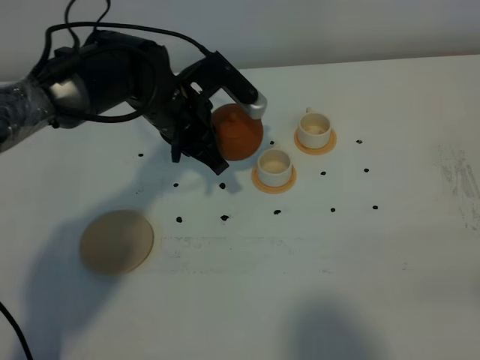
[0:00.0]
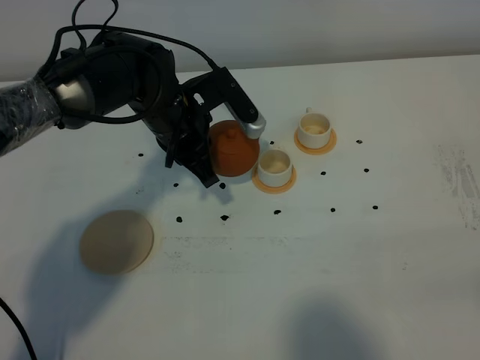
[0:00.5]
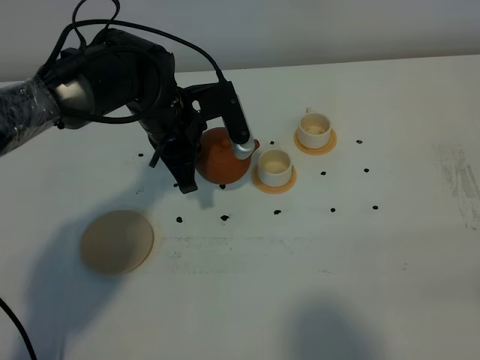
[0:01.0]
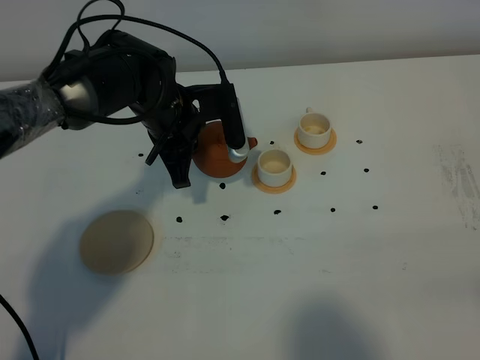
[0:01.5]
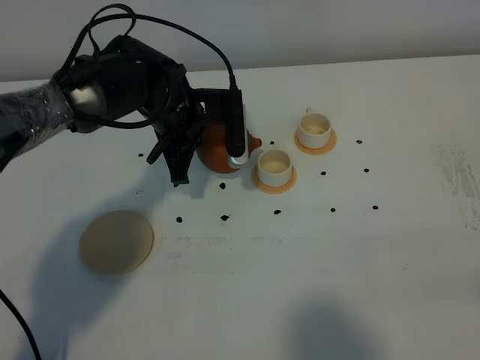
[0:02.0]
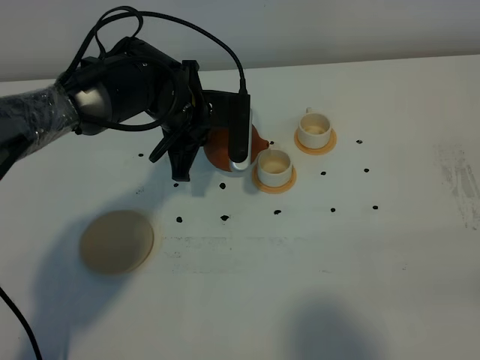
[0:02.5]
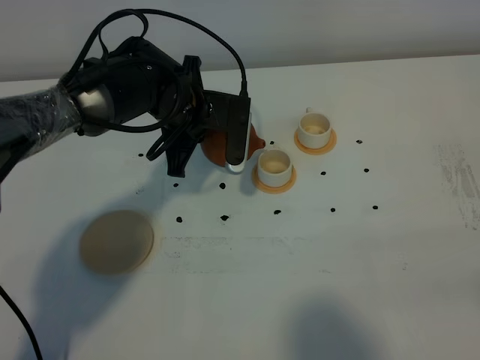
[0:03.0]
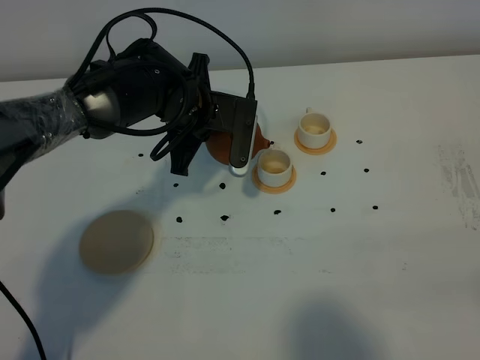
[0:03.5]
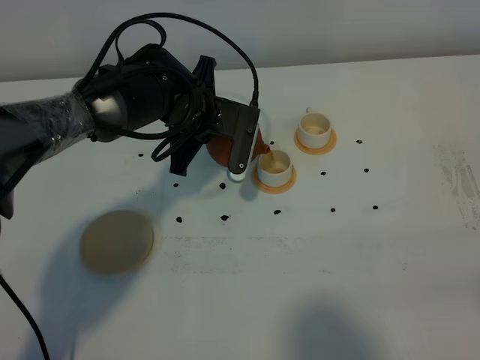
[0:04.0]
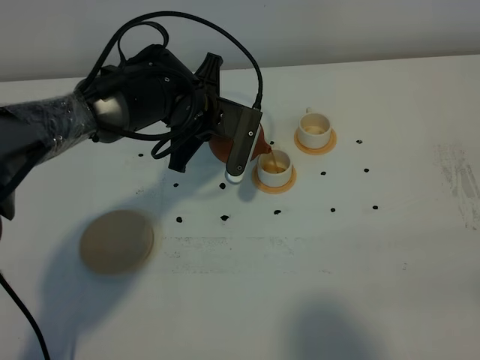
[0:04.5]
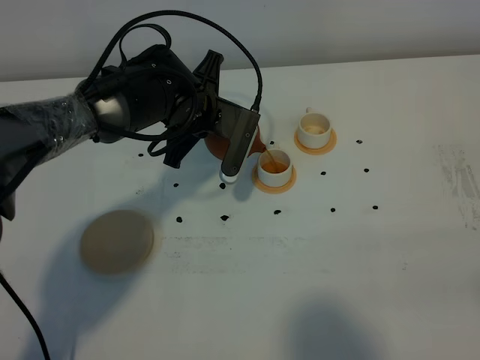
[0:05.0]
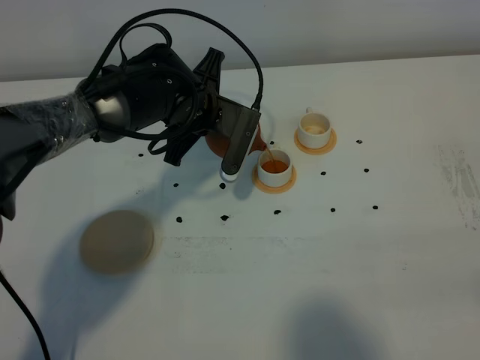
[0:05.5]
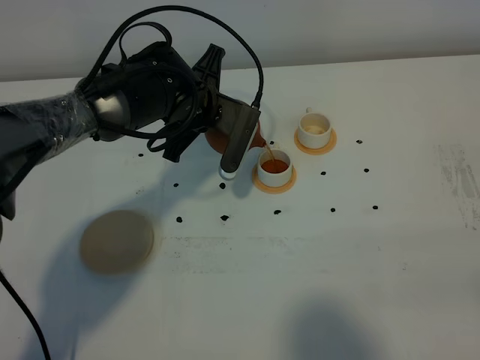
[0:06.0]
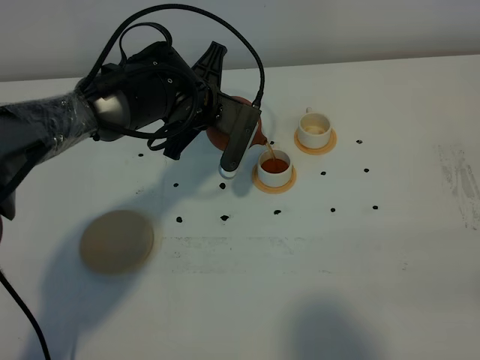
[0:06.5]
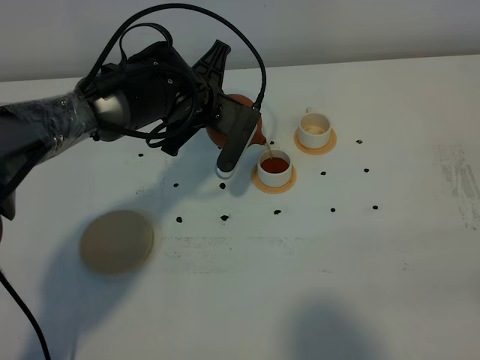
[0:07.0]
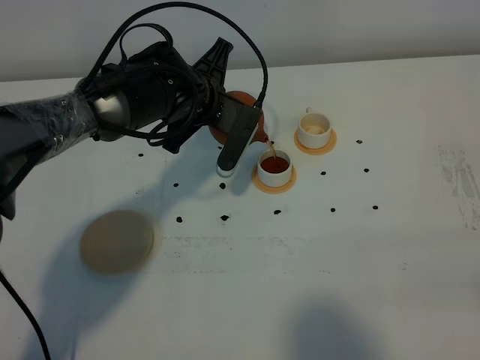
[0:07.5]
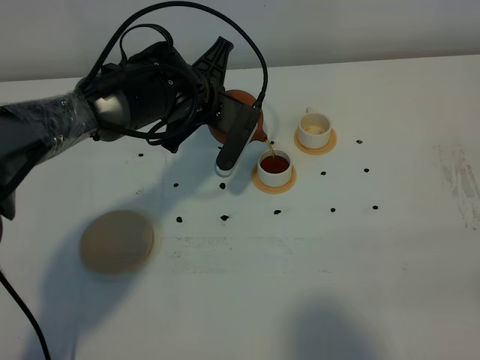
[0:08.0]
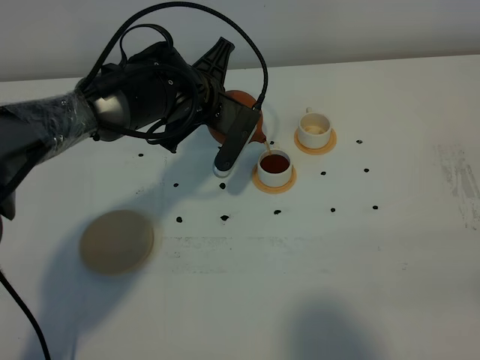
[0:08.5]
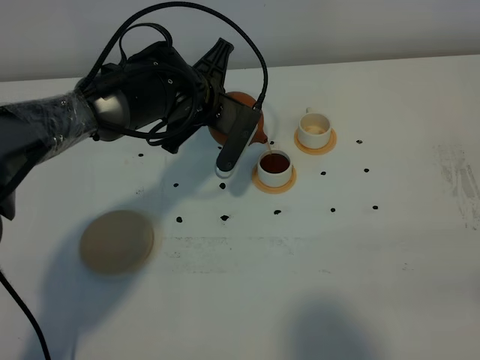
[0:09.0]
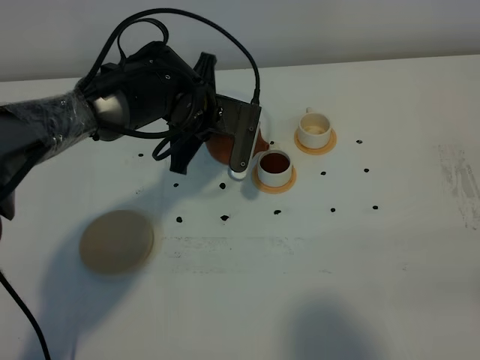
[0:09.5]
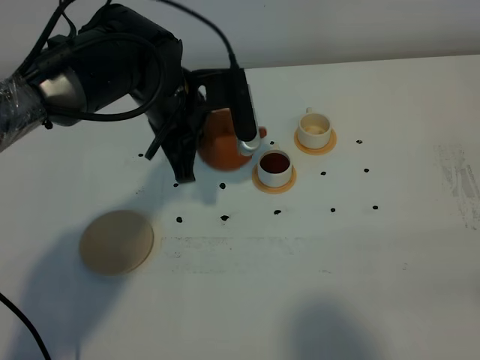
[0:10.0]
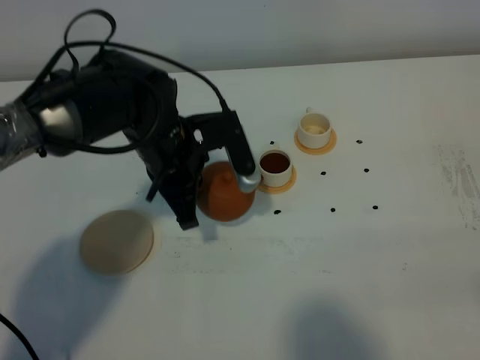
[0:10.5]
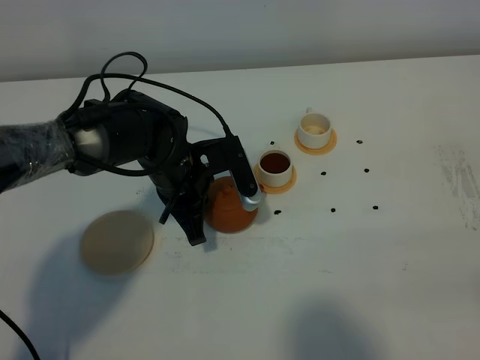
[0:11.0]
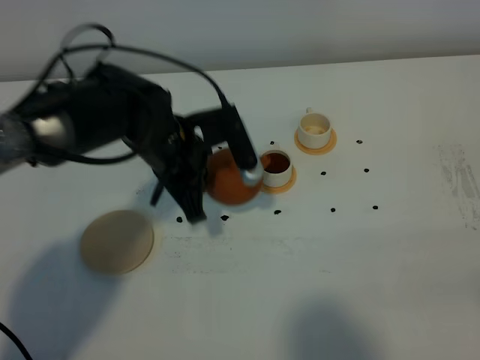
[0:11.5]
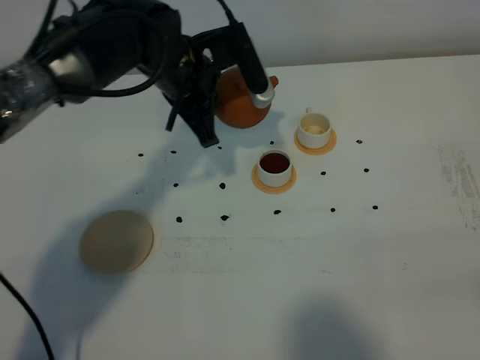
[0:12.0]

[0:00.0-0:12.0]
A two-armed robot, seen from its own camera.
Task of the whole recording: grasp the brown teapot and pour the tea into the two white teacups one by one, put the brown teapot back in its original place.
Step, 0:00.0 to 0:09.5: Pour tea into the teacup with the left gripper.
0:02.0 to 0:04.0: The grippers move only a little.
0:04.0 to 0:08.0: The grippers move only a little.
0:08.0 to 0:10.0: The left gripper changes place by some 5 cm.
0:10.0 to 0:12.0: The left gripper moves about 10 cm downward and comes back.

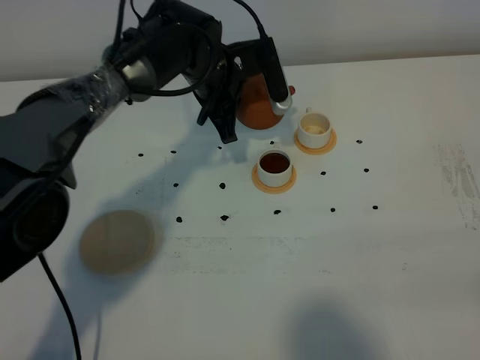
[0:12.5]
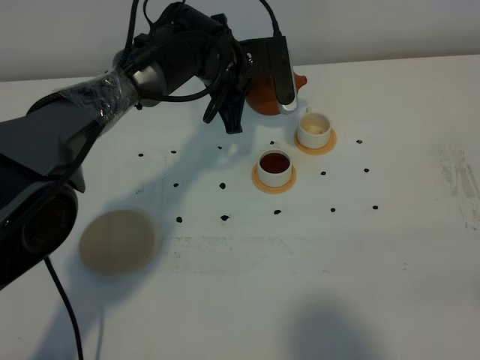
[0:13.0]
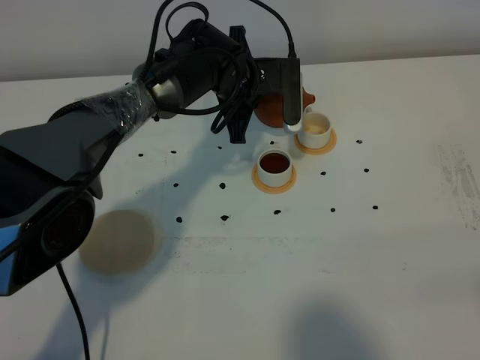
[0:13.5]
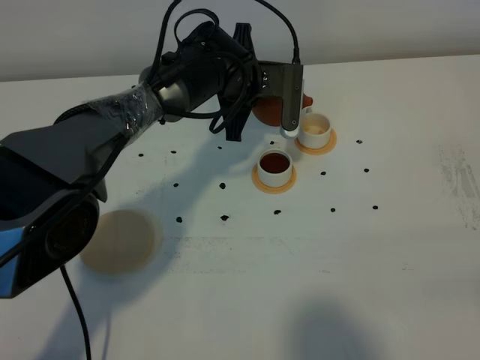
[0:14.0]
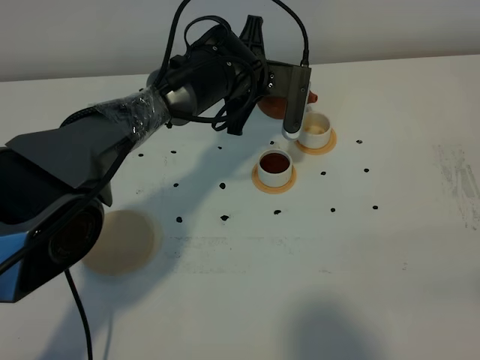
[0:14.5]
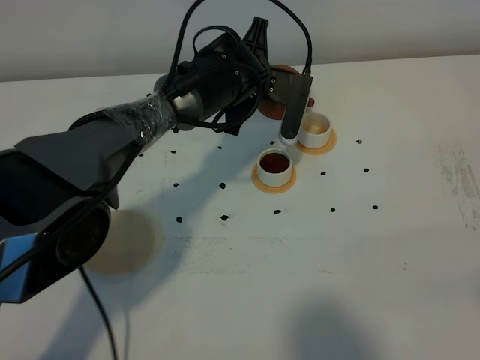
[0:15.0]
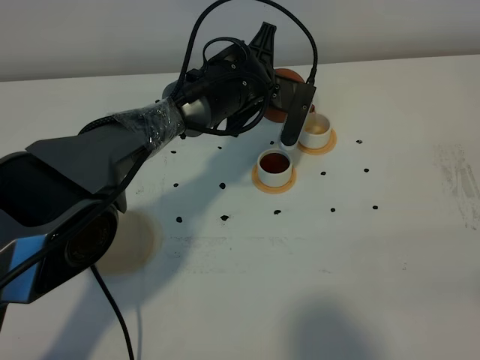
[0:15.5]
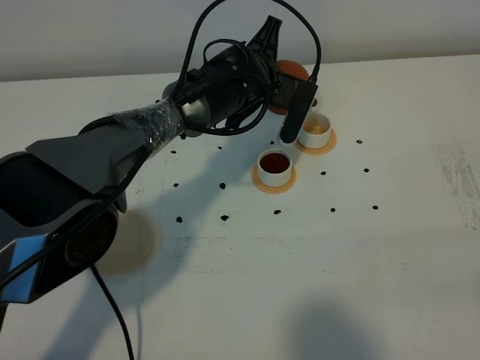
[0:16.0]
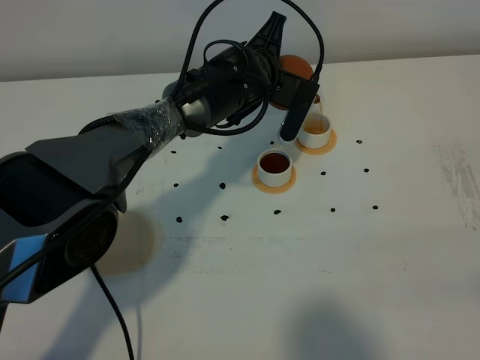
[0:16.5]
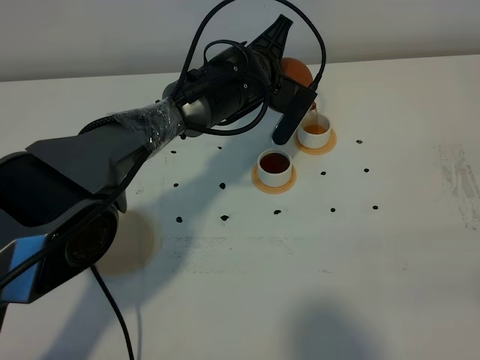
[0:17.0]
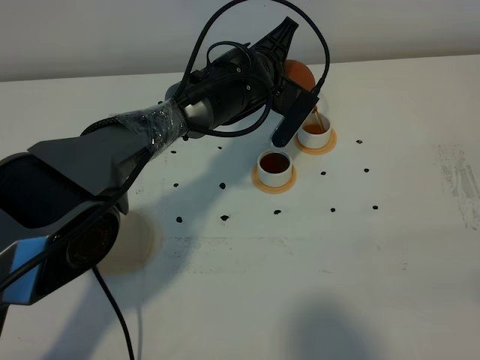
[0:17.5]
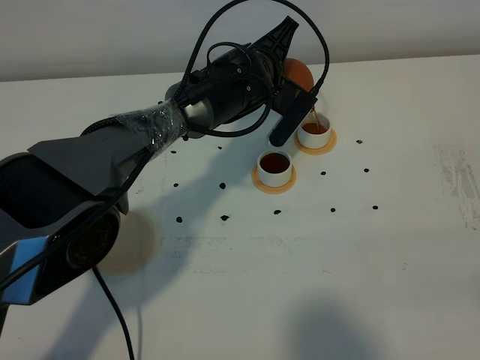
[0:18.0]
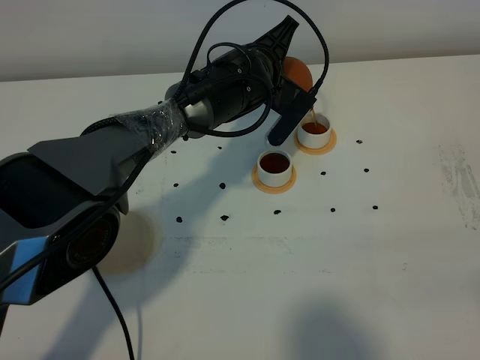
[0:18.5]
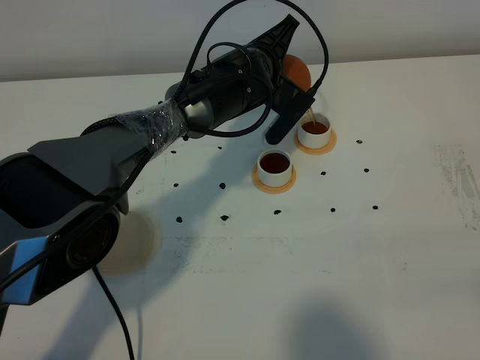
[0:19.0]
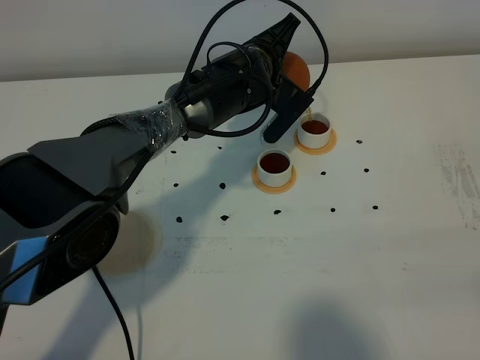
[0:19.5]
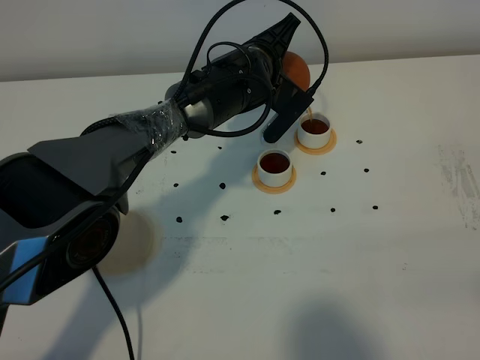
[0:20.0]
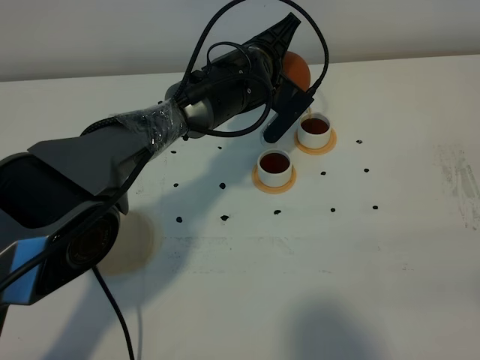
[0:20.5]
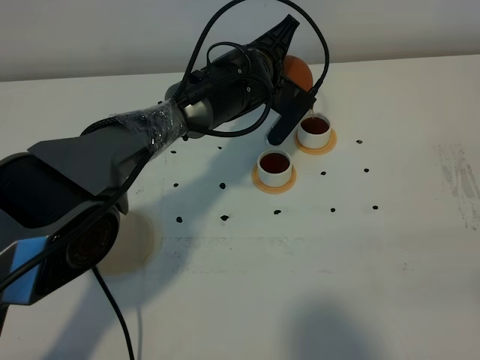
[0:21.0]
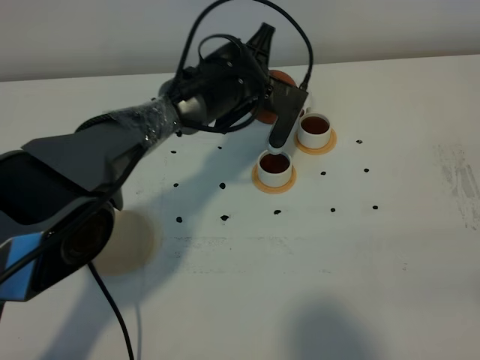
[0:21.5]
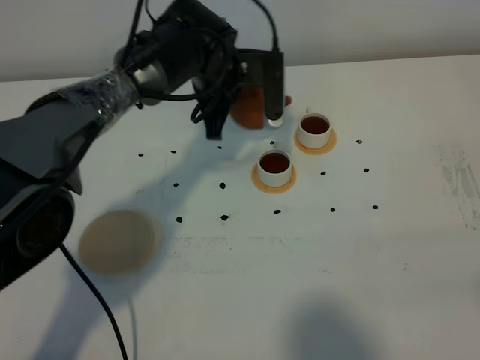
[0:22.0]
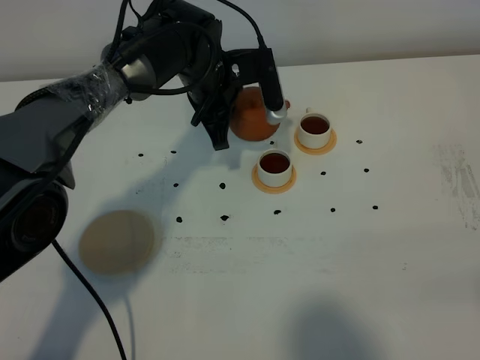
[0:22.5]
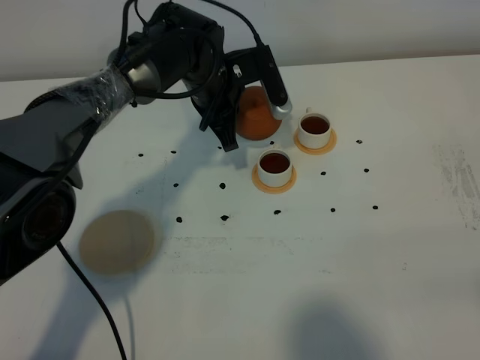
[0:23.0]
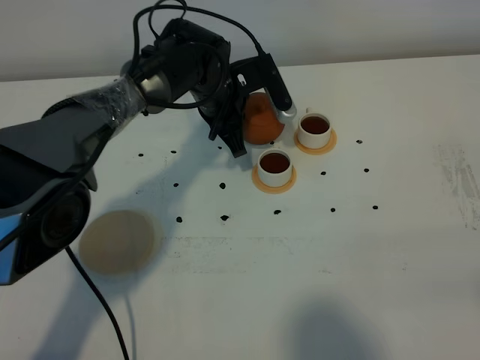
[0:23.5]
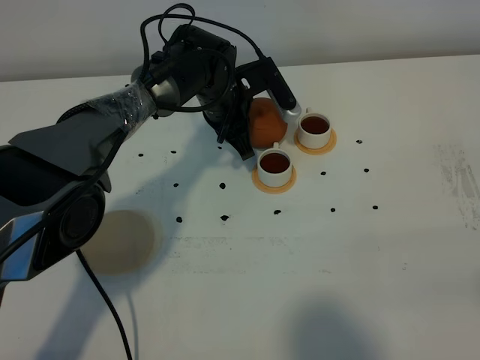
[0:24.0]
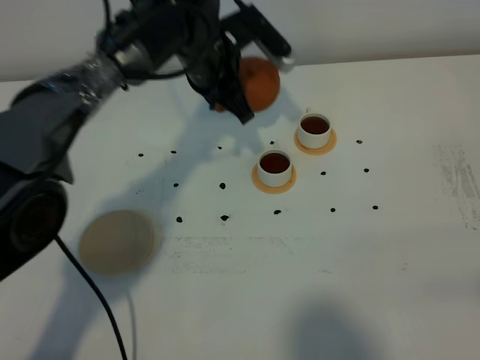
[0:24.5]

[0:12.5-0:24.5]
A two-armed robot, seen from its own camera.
Task of the whole recording: grasp the brown teapot and pour the tea into the two white teacups one by one, put the brown teapot back in its original place.
Step, 0:12.5 to 0:21.5: Pour tea into the teacup with the left gripper.
0:14.5 to 0:16.5: The grippers stay close to where they were, moving slightly.
0:16.5 to 0:18.5: The grippers stay close to where they were, moving slightly.
0:18.5 to 0:20.5: Neither gripper changes place.
0:20.5 to 0:22.5: The left gripper goes some 5 cm to the left.

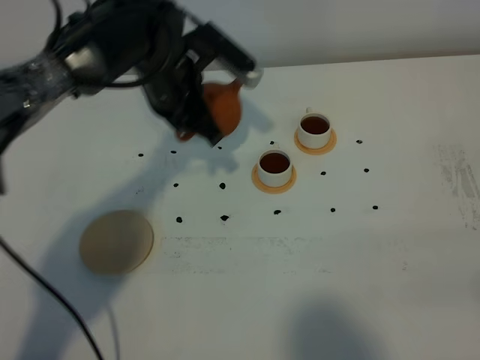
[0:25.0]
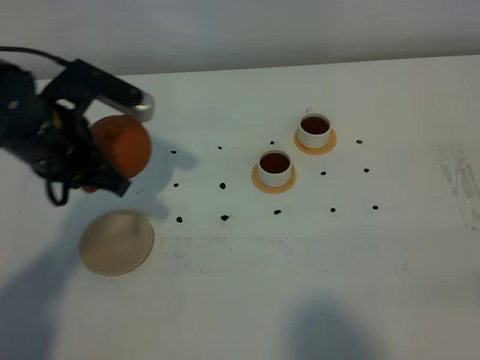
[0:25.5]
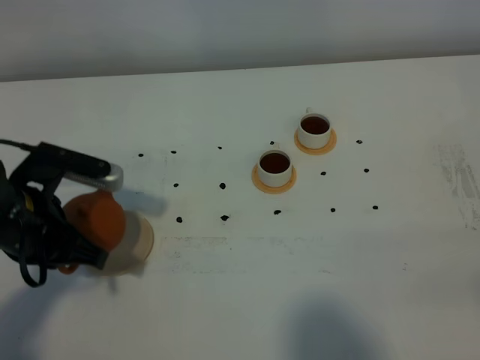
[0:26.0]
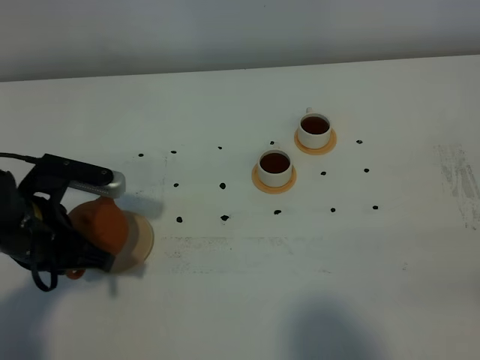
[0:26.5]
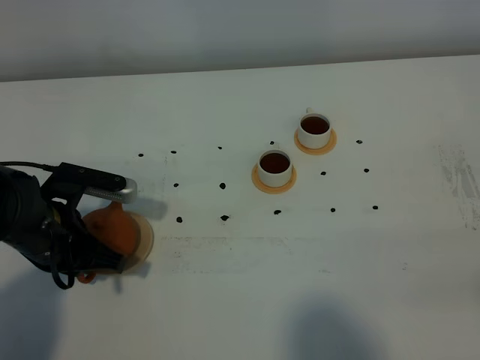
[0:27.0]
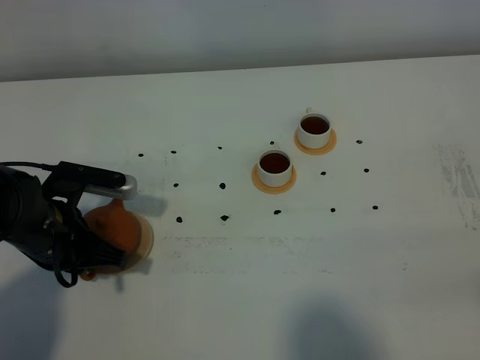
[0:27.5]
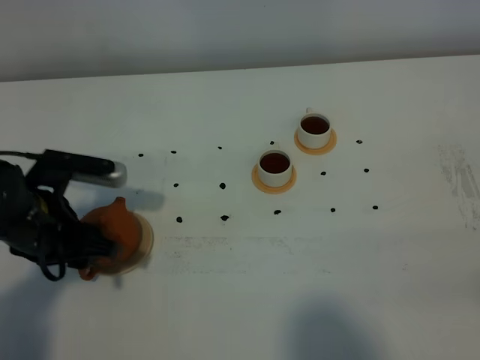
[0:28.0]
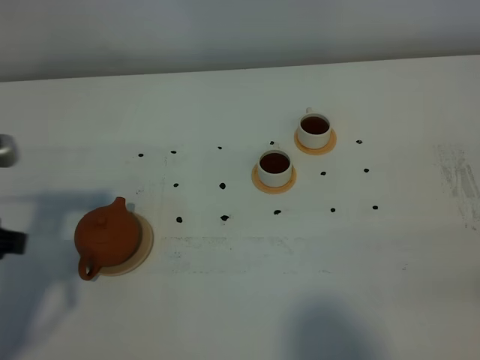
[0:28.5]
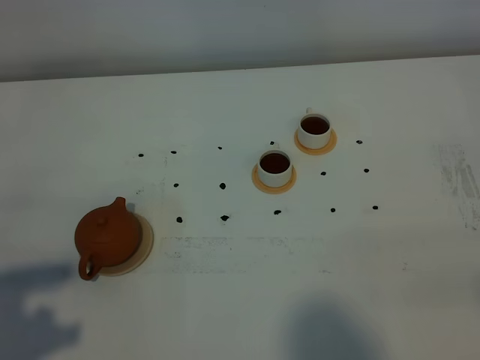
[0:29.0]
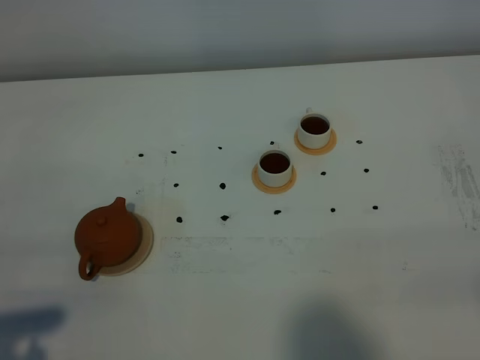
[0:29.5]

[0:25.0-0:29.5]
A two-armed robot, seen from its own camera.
Task of the whole recording: grasp the brown teapot and pour the tea into the two white teacups one by one, put the brown teapot back in its original place.
0:25.0 to 0:27.0: The left gripper travels backward, to the left and downward by roughly 20 cm.
0:27.0 to 0:29.5: The left gripper shifts about 25 cm backward and upward, and opens.
